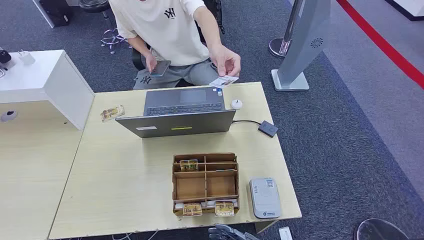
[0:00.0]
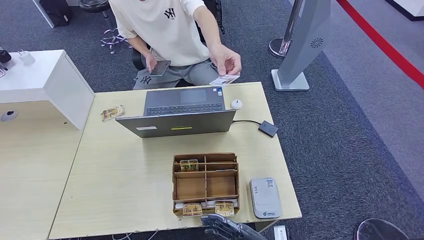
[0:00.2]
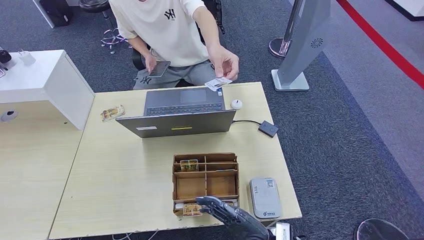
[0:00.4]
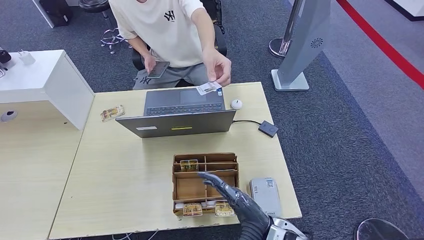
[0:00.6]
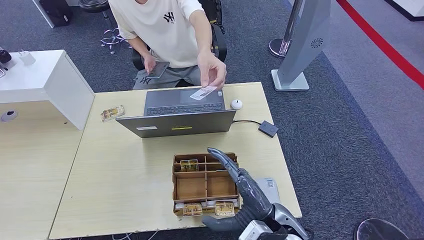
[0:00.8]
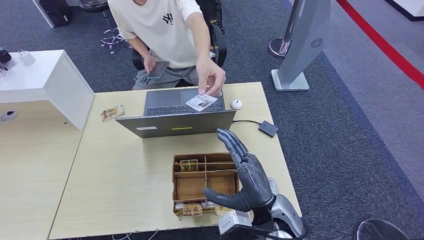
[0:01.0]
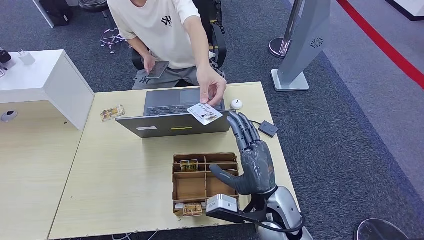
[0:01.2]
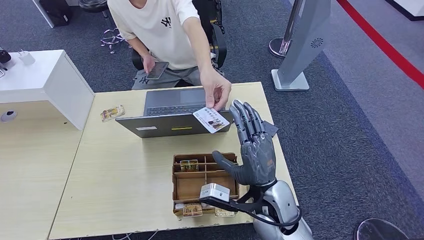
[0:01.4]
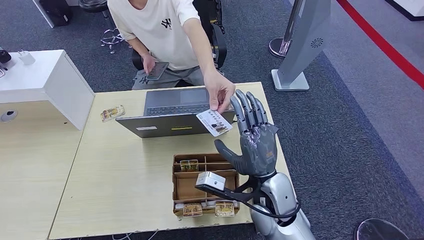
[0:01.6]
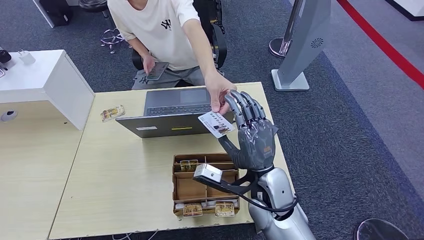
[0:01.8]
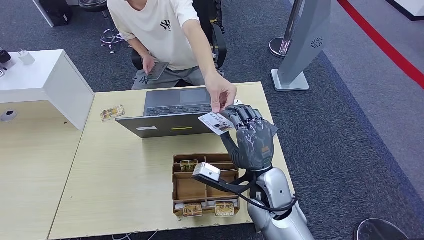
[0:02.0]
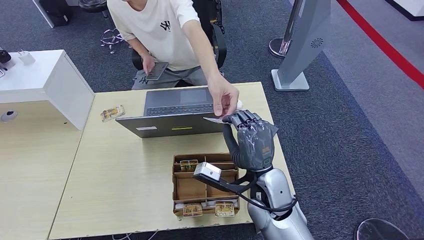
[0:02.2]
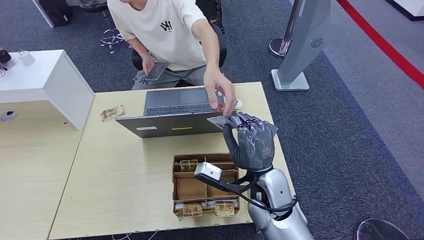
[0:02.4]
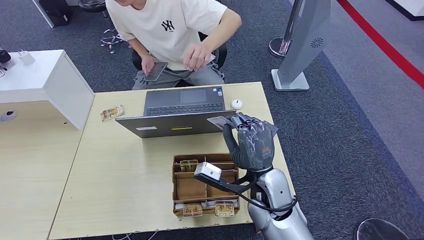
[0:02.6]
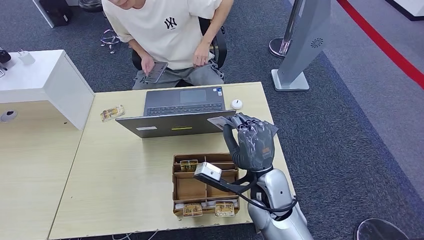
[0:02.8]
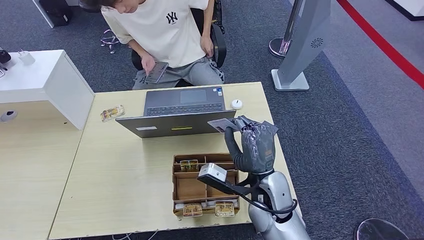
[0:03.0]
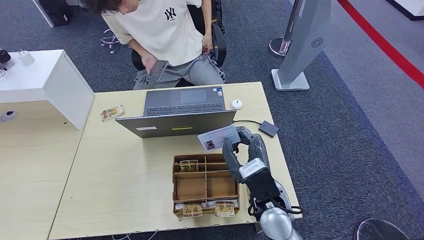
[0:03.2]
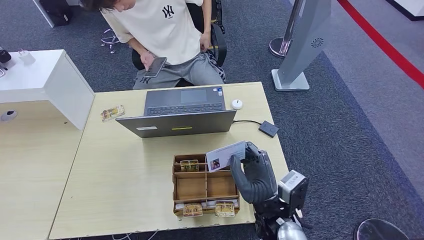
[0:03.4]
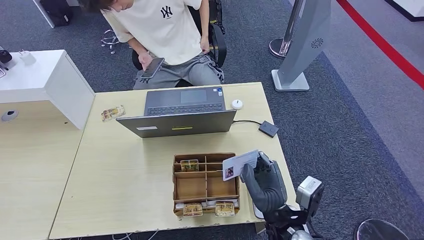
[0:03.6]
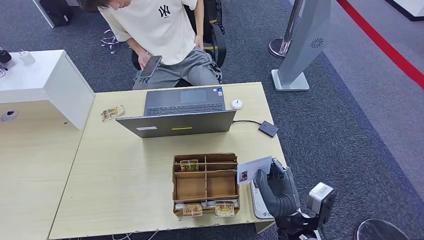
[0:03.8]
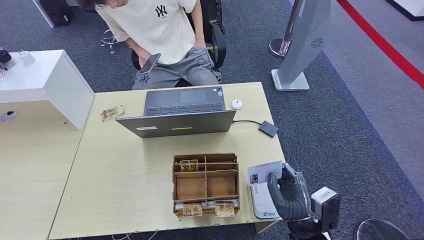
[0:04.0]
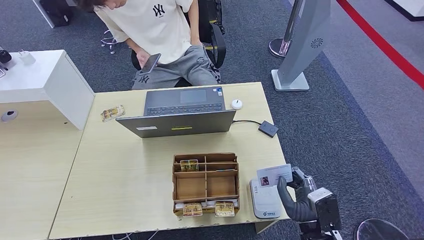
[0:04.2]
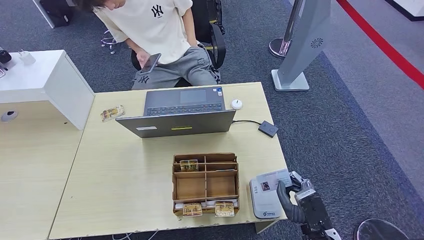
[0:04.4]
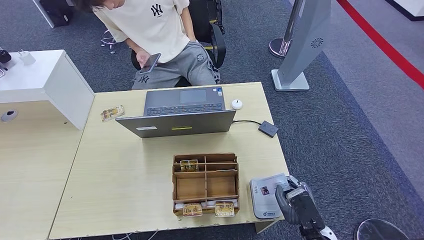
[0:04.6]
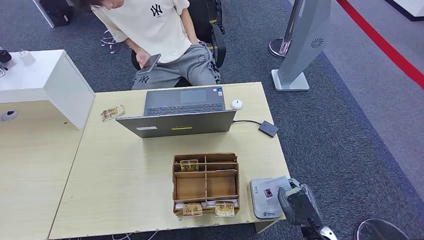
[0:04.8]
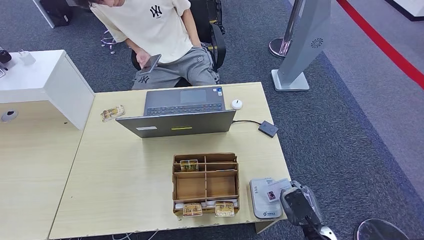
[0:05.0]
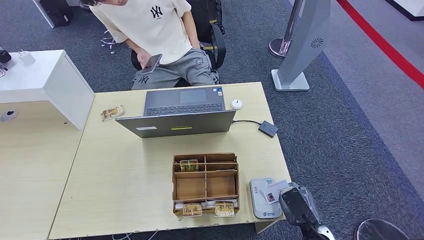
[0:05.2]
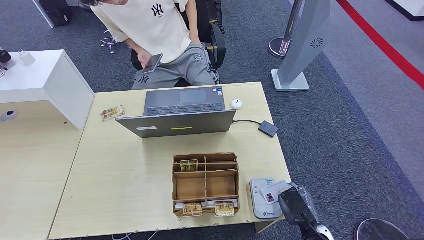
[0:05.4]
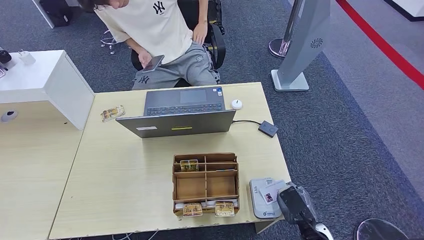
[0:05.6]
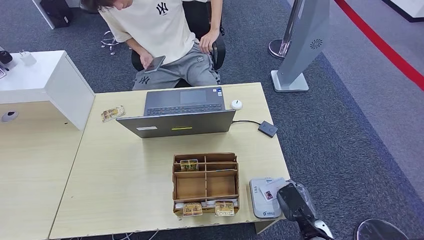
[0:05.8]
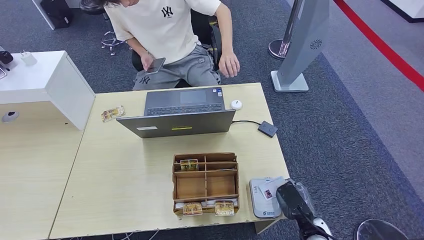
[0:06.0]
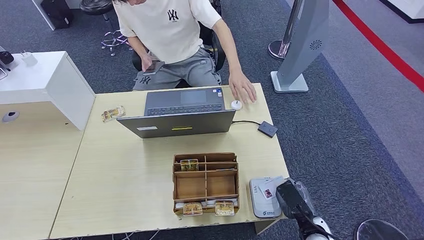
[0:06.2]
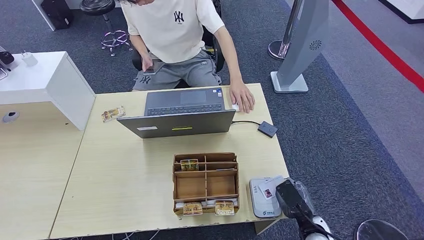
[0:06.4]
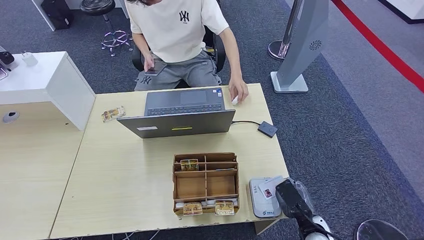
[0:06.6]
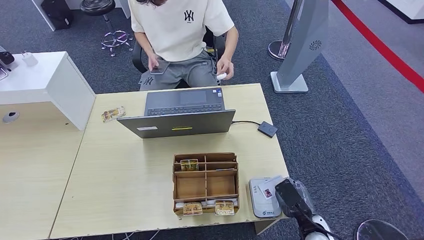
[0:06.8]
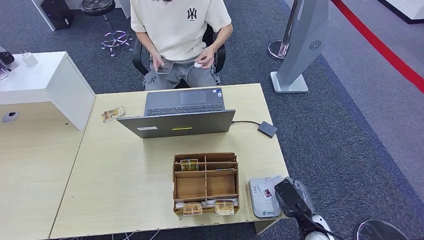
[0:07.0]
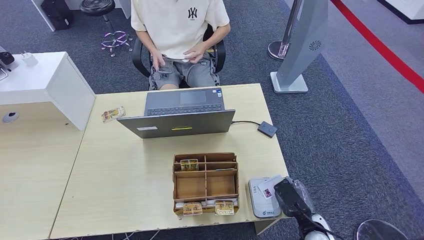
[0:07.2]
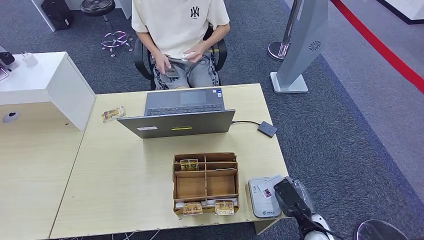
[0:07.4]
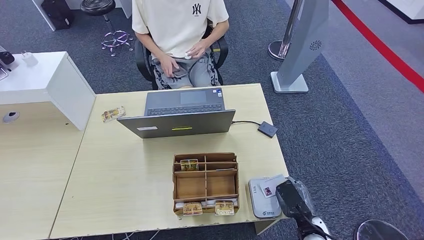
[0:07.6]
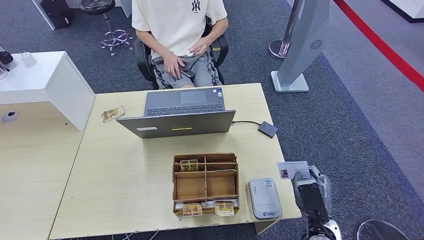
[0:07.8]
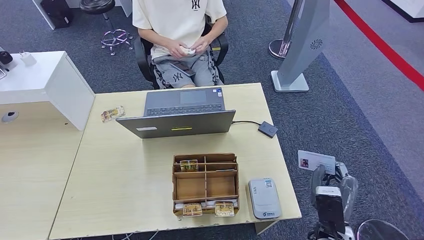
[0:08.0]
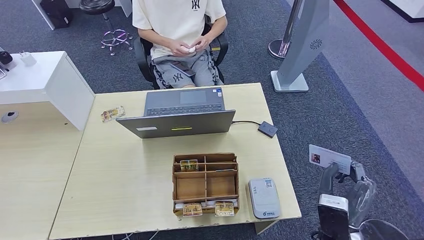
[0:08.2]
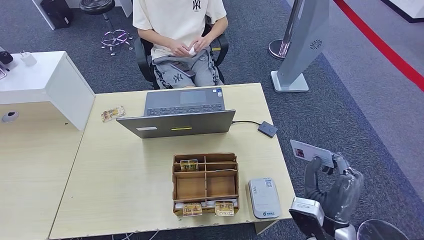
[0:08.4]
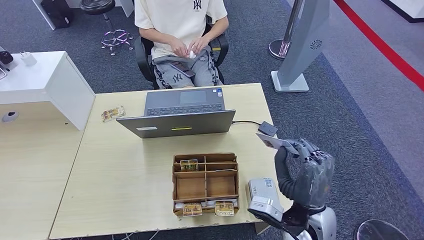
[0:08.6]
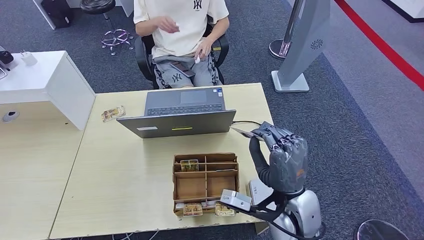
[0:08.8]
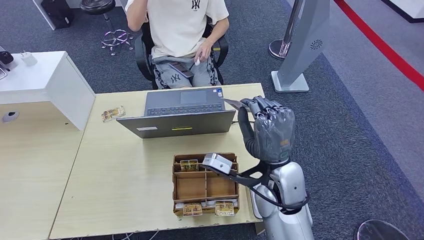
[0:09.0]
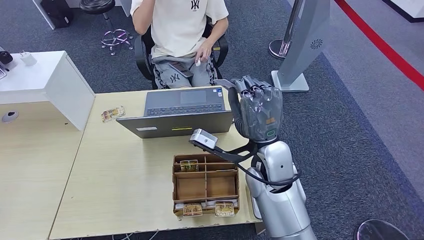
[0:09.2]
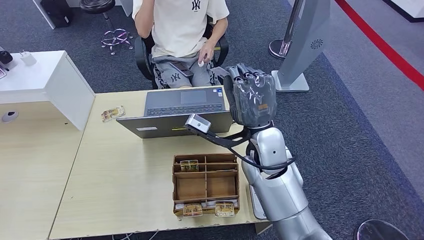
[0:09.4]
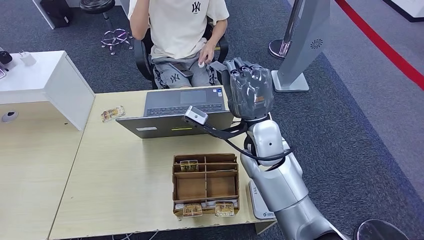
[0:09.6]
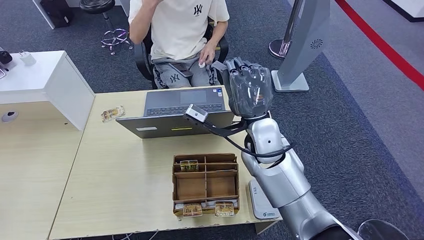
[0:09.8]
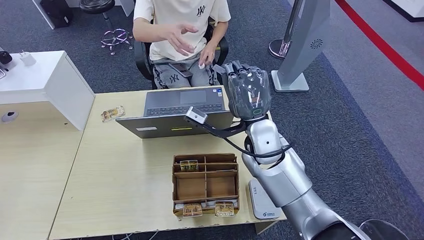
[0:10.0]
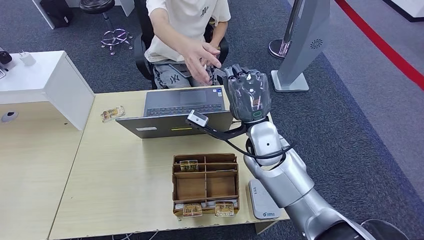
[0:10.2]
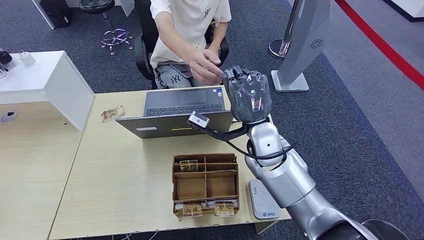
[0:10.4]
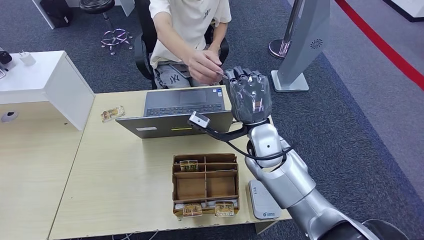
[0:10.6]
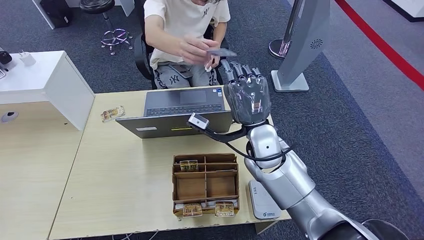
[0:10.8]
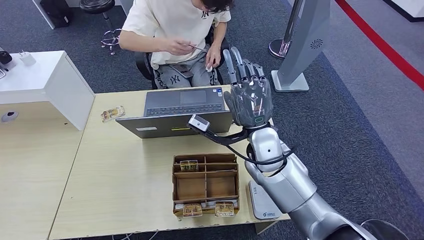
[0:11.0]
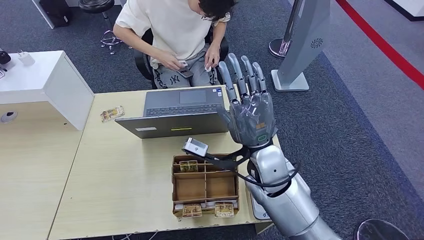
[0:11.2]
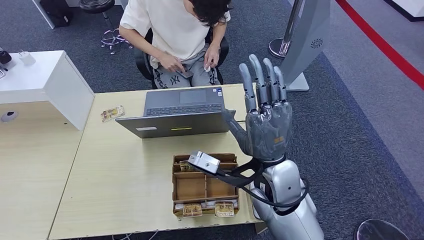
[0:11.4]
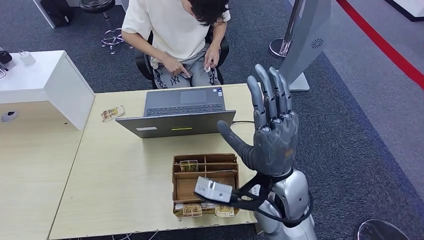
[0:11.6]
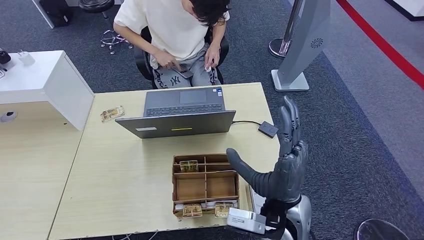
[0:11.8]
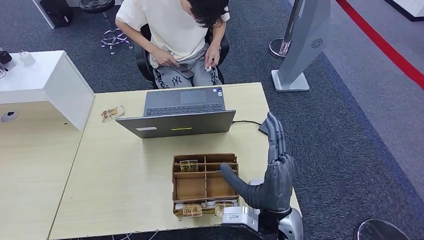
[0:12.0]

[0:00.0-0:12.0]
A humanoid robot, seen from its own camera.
Step, 0:00.0 to 0:03.0: Take the ID card from the person's hand.
Step, 0:03.2 to 0:07.8: Place the ID card on the card reader.
Step, 0:08.0 to 0:11.8: Hand the ID card to the person.
0:01.6 to 0:03.0: The hands stay close to where they were, moving slightly.
0:03.0 to 0:04.4: The right hand shifts approximately 20 cm to the right, backward and downward.
0:04.4 to 0:06.0: The right hand travels downward by approximately 5 cm.
0:06.0 to 0:07.6: The hands stay close to where they were, moving slightly.
0:07.6 to 0:09.0: The right hand travels upward, to the left and forward by some 25 cm.
0:09.0 to 0:10.4: The right hand moves forward, approximately 10 cm.
0:10.4 to 0:12.0: The right hand goes about 20 cm backward.

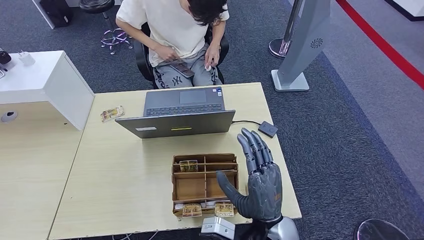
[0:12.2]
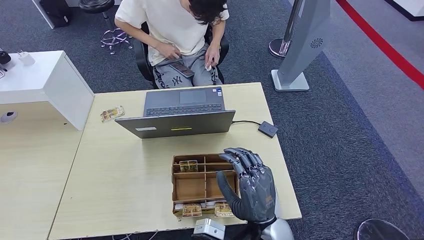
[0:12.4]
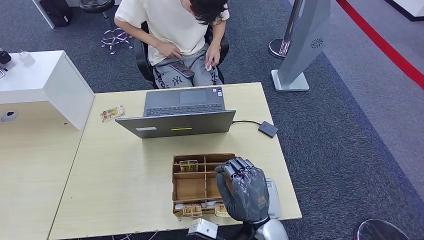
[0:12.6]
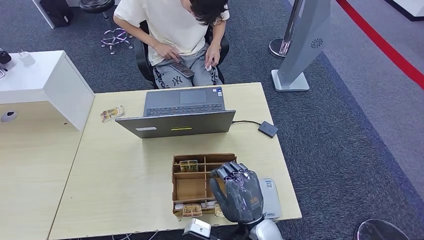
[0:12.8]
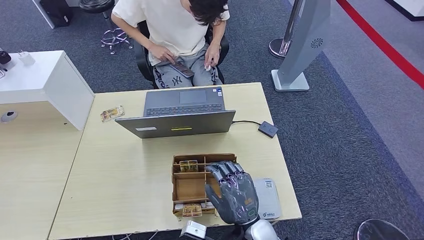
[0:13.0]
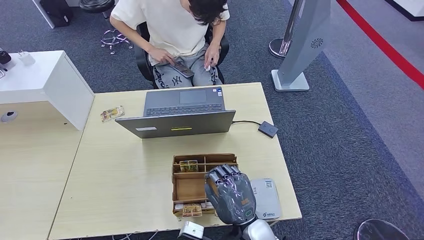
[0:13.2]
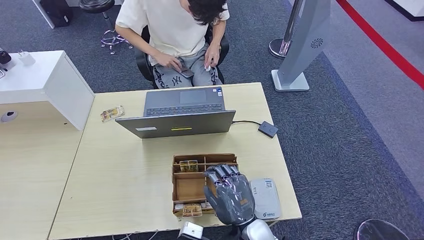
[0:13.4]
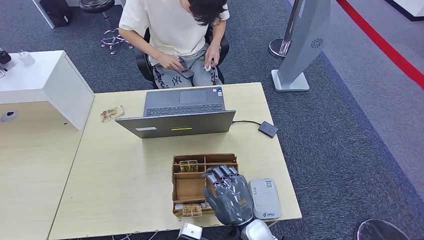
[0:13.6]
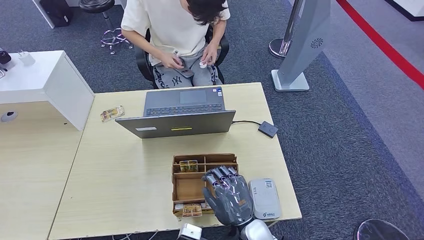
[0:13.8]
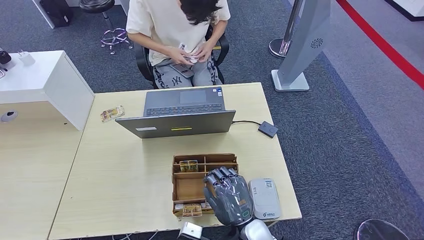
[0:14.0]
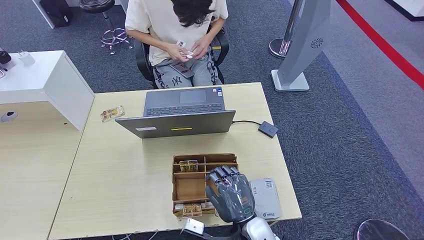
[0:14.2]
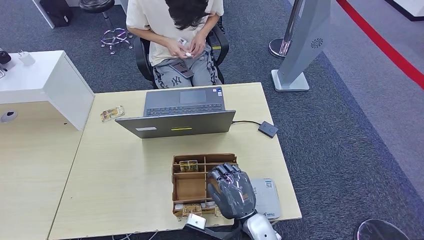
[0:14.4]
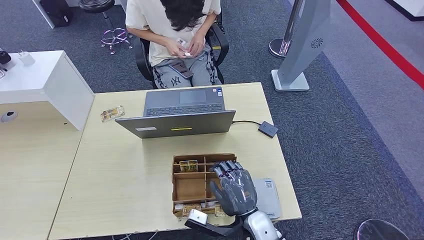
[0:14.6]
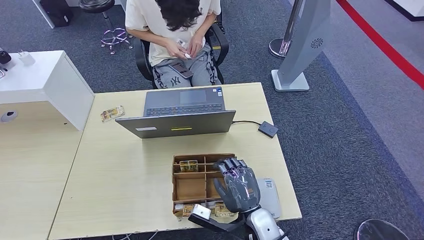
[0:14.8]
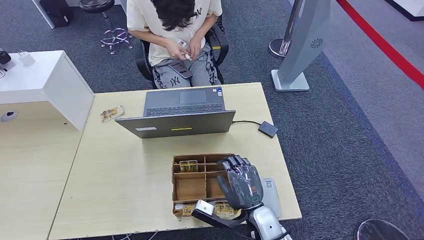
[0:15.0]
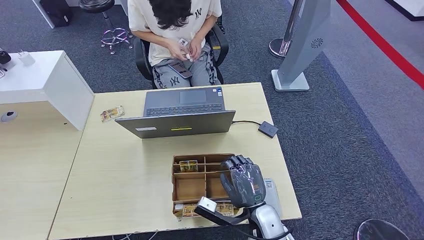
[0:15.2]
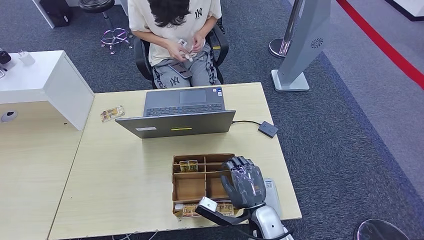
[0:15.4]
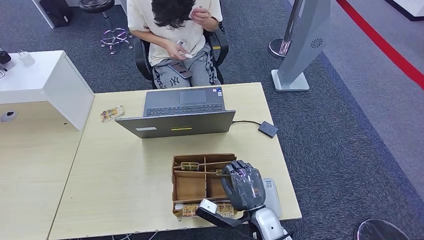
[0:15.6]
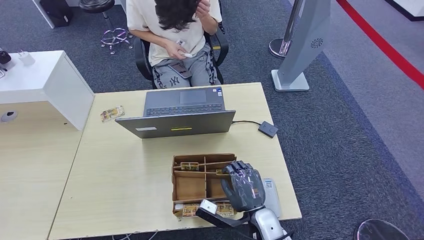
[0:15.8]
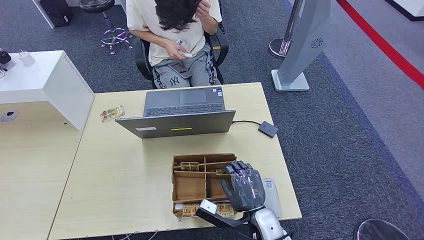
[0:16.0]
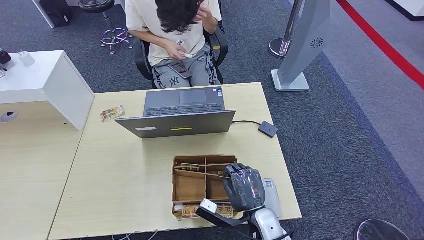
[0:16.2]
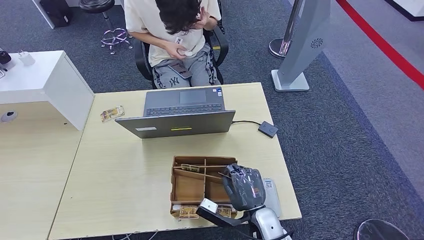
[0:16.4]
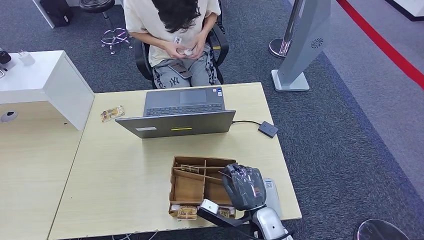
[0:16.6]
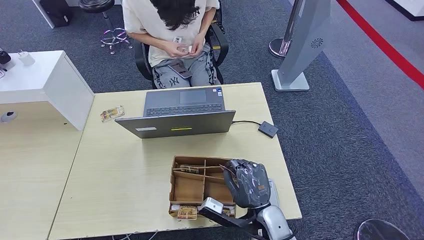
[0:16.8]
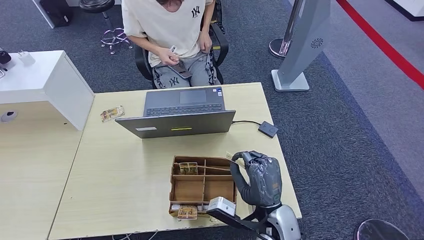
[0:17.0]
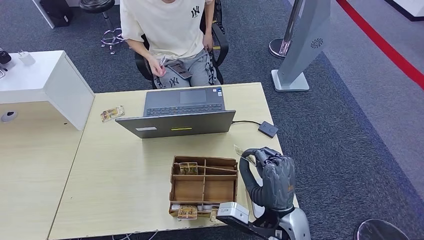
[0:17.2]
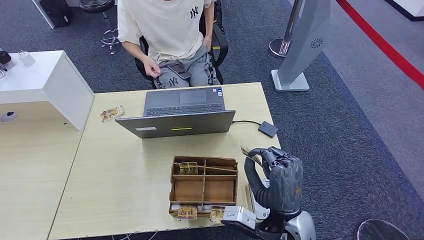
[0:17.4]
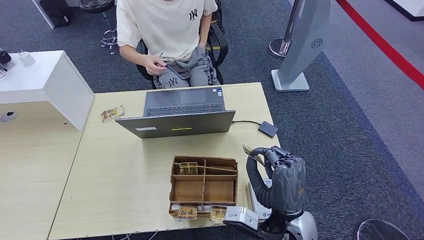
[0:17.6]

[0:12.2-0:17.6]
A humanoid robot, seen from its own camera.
Step, 0:15.2 to 0:17.4: Pick up the room key from the key card box.
0:12.2 to 0:13.6: The right hand shifts about 5 cm downward.
0:13.6 to 0:16.2: The hands make only small movements.
0:16.2 to 0:17.6: The right hand travels upward by roughly 10 cm.
